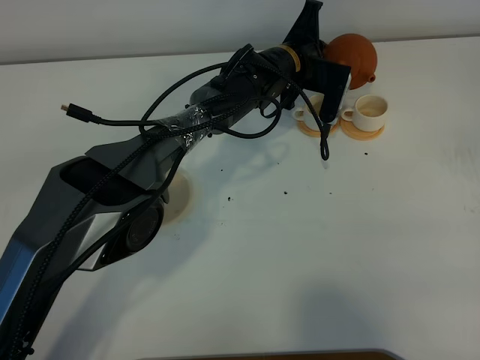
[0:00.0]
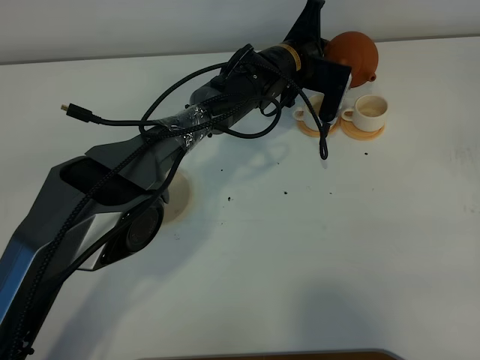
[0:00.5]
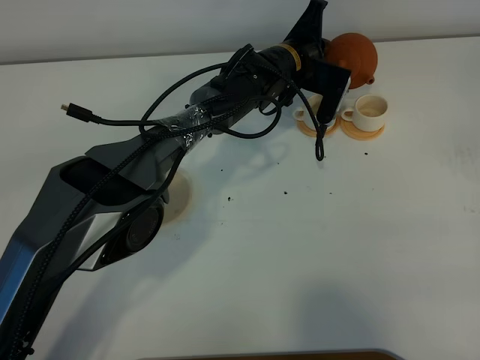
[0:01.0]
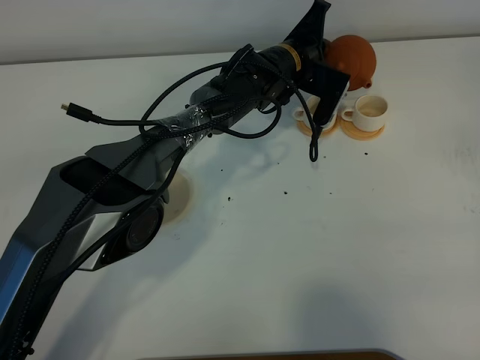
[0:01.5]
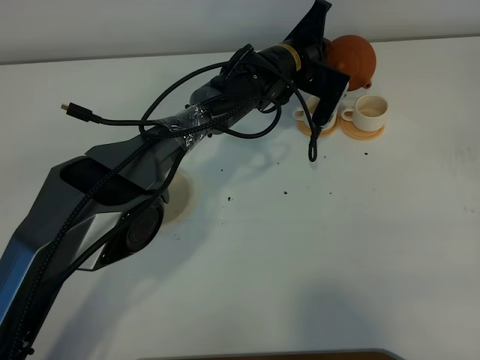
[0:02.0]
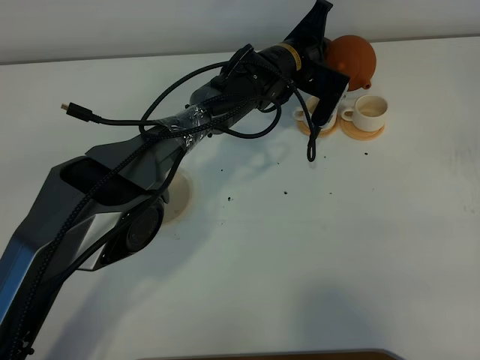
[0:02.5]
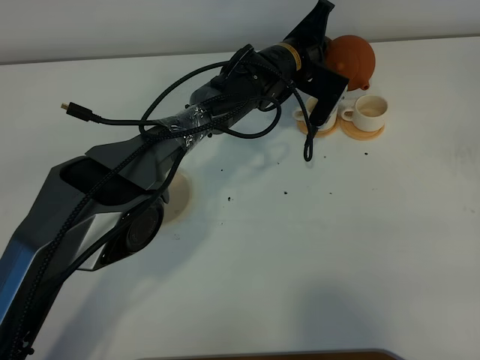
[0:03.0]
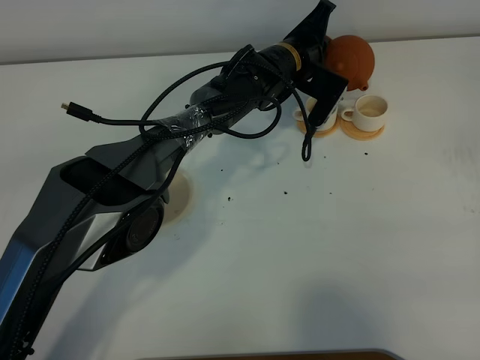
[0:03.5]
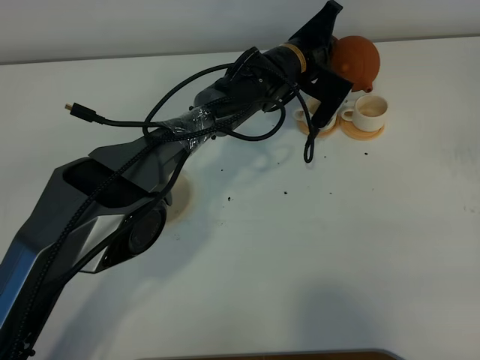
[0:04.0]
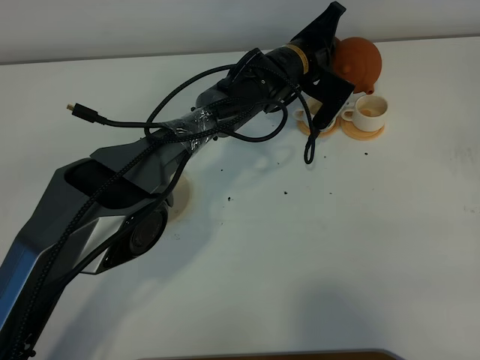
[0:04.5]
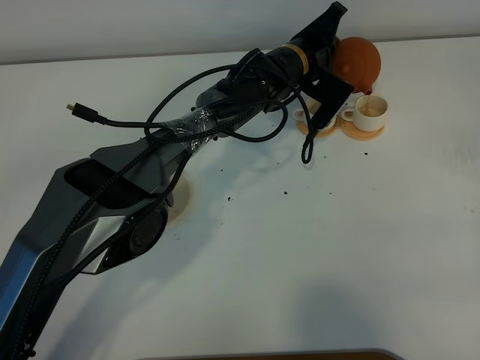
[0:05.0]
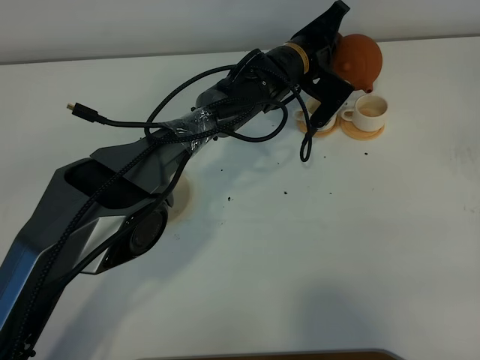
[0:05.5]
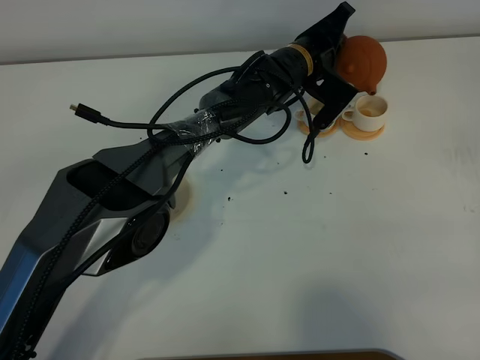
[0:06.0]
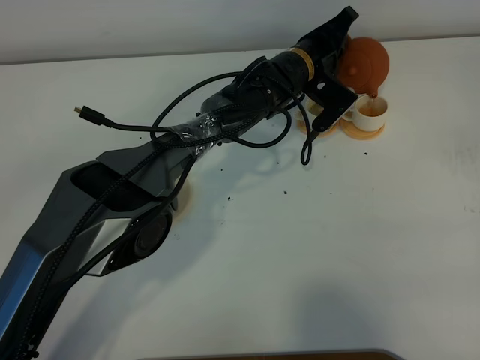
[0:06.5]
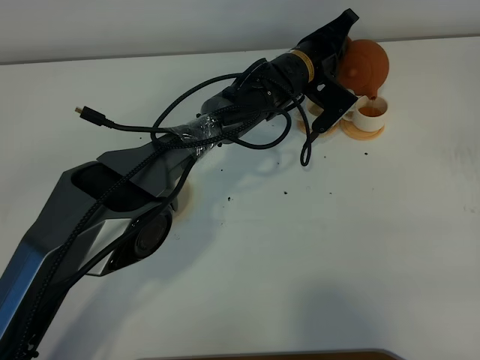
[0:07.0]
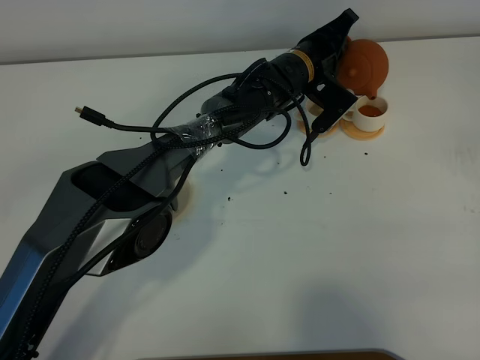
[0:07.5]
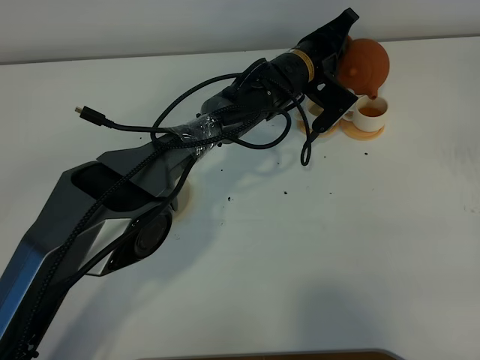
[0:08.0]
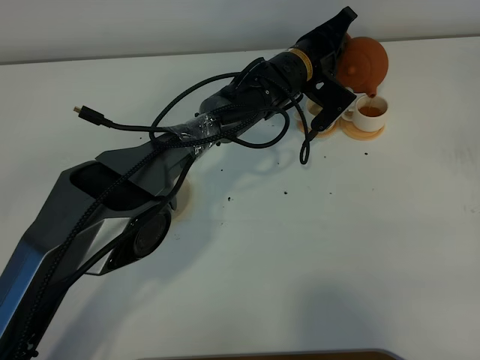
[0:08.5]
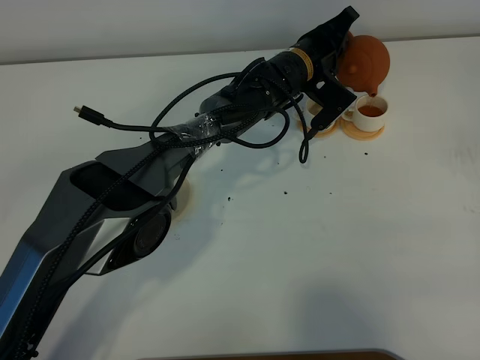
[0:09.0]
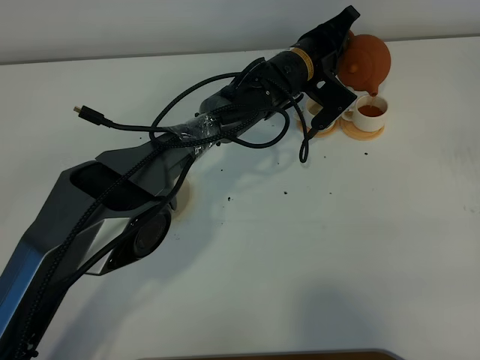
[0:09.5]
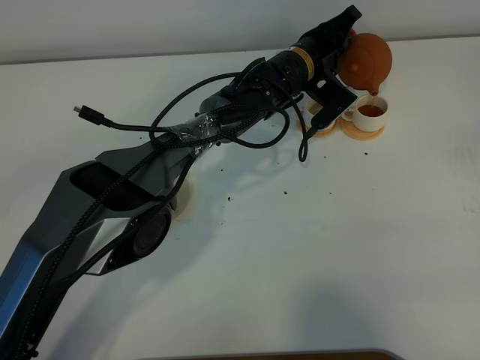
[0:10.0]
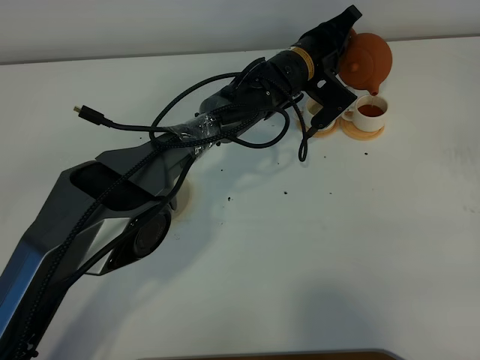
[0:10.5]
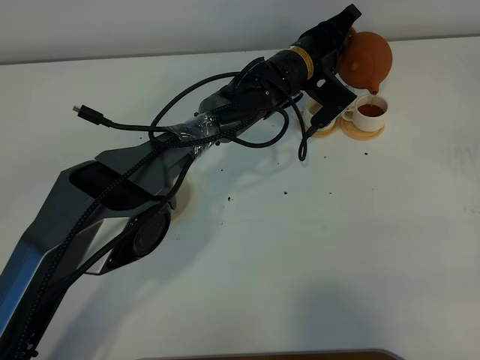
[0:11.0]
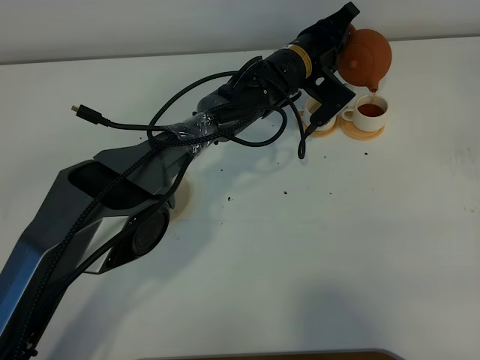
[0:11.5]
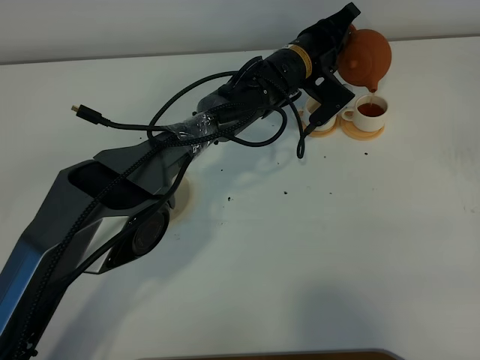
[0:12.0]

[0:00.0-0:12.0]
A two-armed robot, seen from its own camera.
Task of the whole recording: grasp the brown teapot and pour the tea into the two white teacups one by one, put the brown teapot back in its original place.
0.0 to 4.0 s: The grippers stay close to where they were, moving slightly.
4.0 to 6.0 s: The grippers move only a little.
6.0 to 8.0 s: Neither gripper changes place.
8.0 to 10.0 s: The two grippers keep their place.
10.0 to 12.0 s: Both grippers stay put.

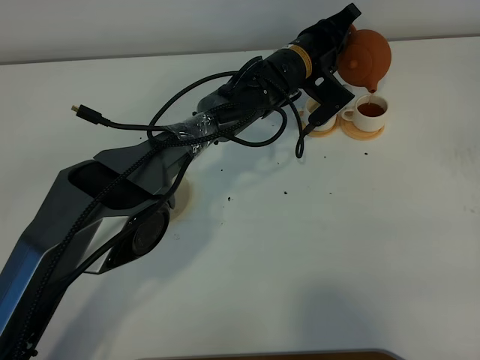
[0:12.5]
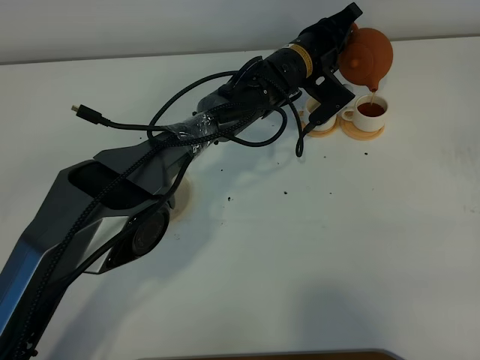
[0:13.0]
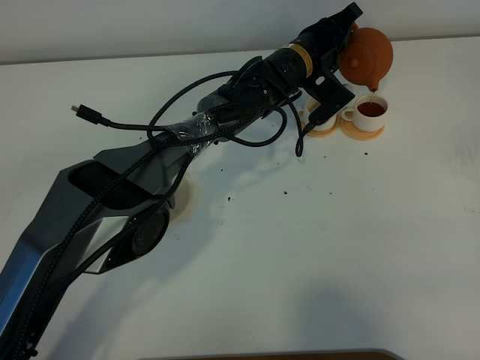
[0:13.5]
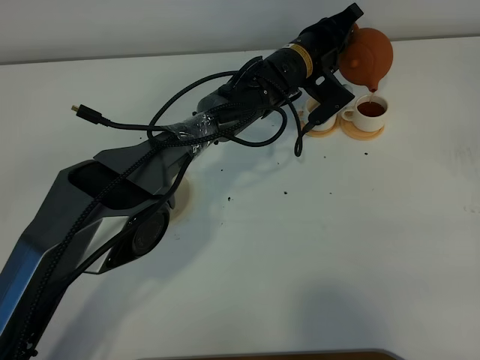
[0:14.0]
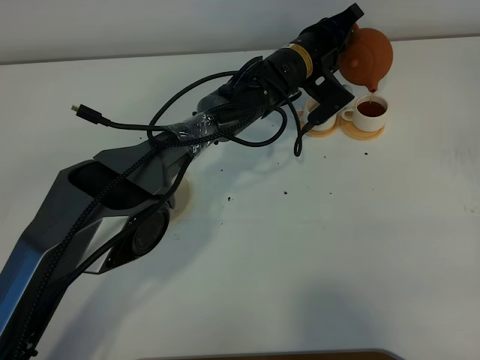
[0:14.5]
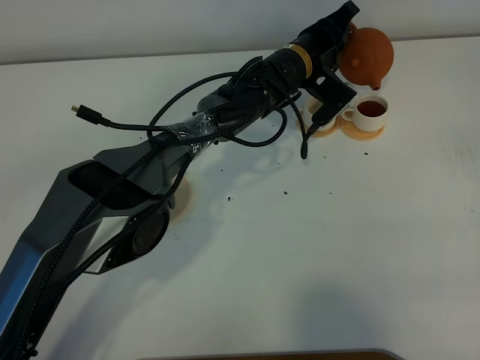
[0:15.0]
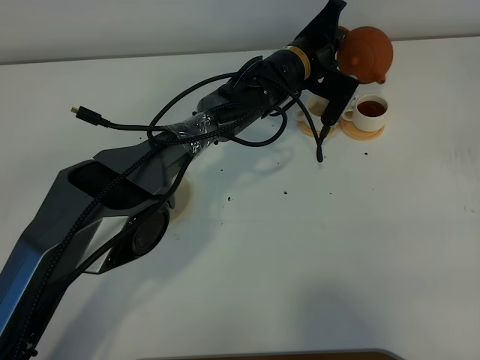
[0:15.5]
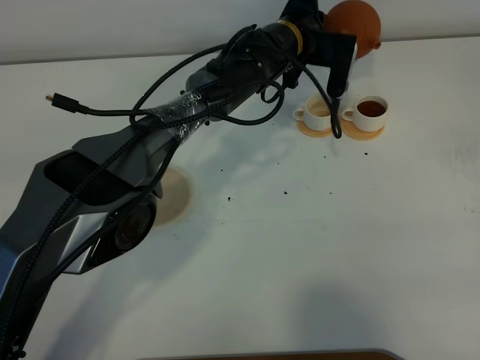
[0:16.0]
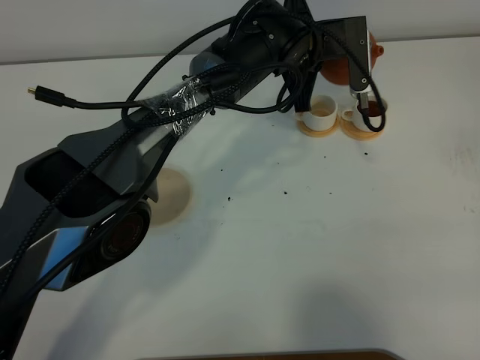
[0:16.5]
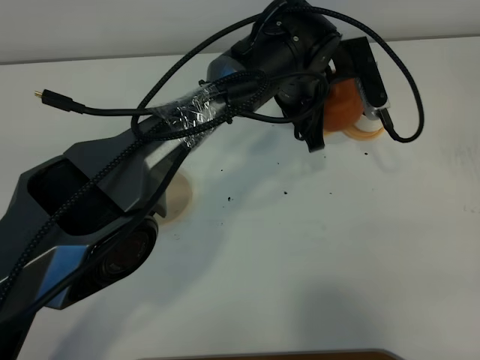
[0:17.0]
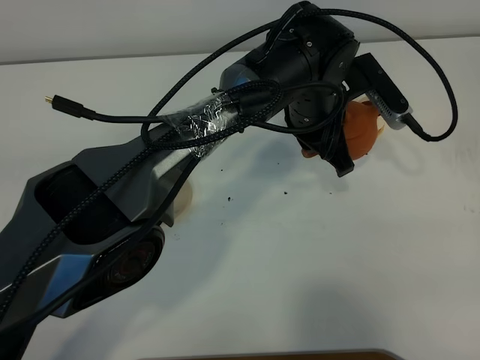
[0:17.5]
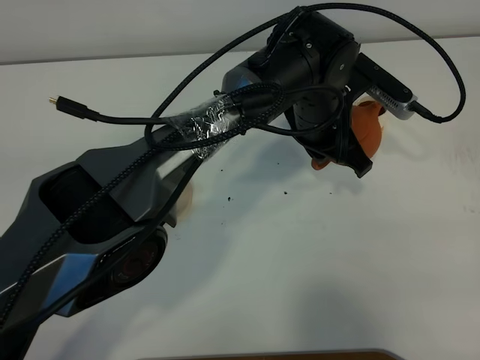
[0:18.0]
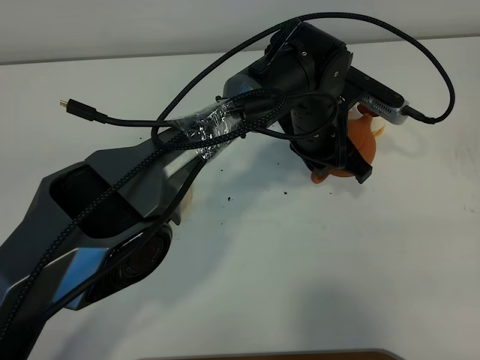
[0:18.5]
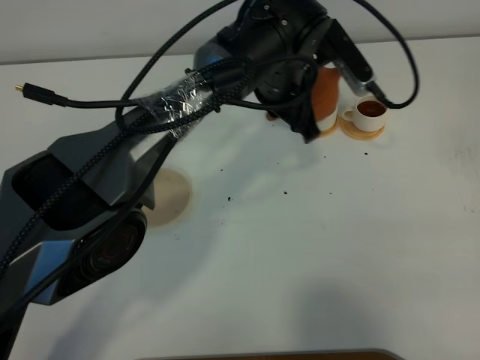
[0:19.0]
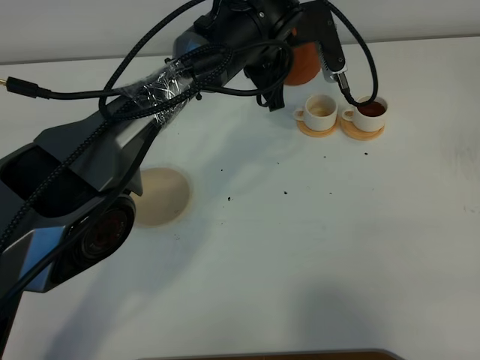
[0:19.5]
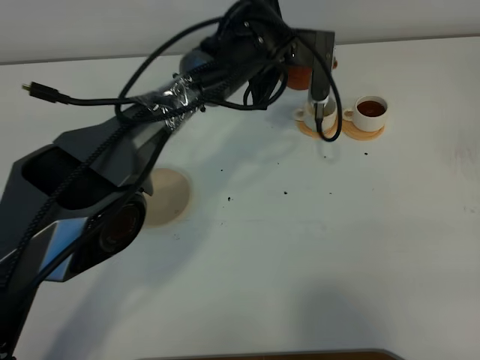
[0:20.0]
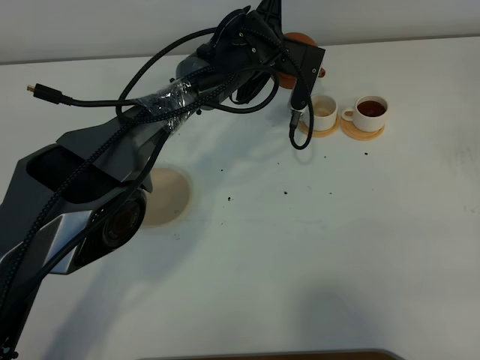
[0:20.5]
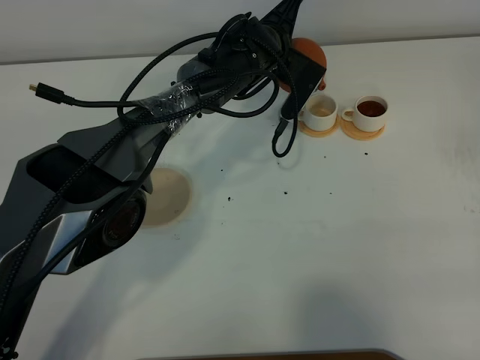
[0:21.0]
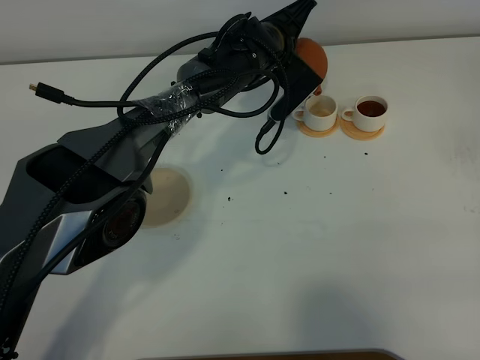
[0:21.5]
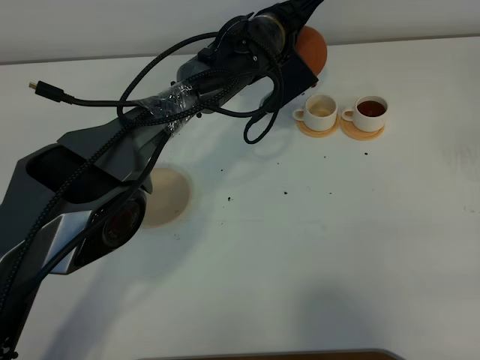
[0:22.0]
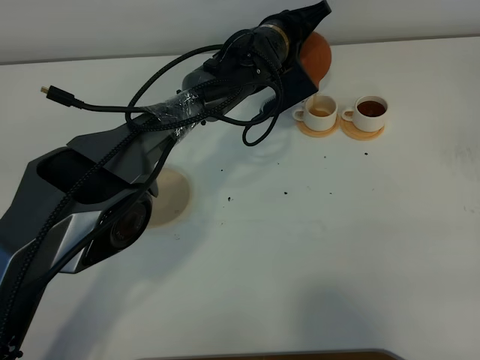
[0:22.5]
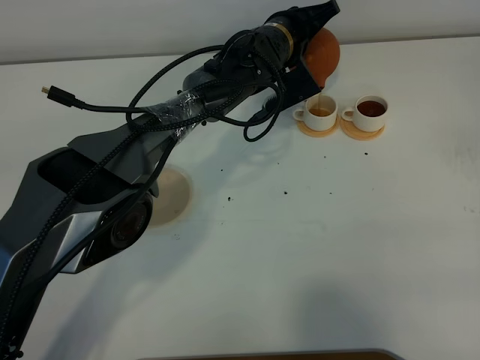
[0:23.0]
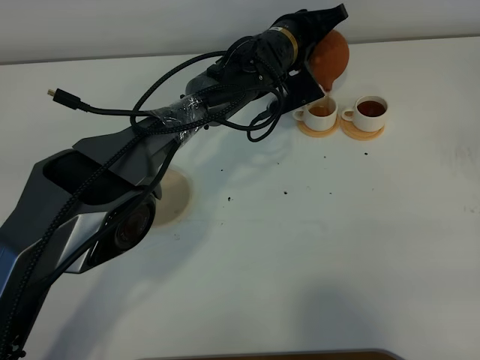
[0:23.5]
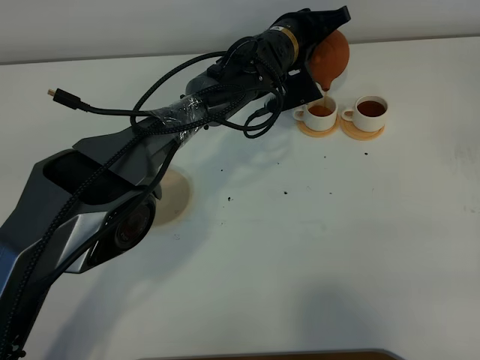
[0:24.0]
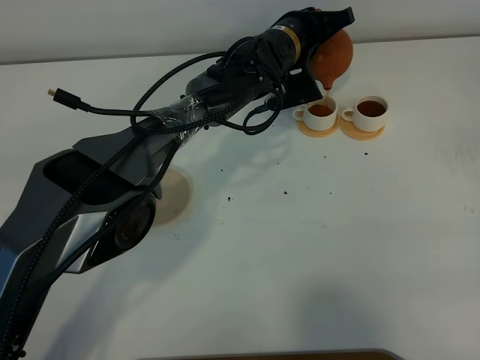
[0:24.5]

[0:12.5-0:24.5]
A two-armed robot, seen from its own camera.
Task of the whole recording: grasp the brown teapot and pour the tea into the two white teacups one by one, put the brown teapot back in its original place.
Step, 12.5 to 16.0 s: Pour tea into the teacup with the left gripper.
12.5 to 14.5 s: Both grippers stay about where they are.
14.5 to 16.5 s: The left gripper is displaced upward by some 5 cm.
16.5 to 18.5 s: The left gripper heads backward, covering some 5 cm.
18.5 to 20.5 s: The left gripper is displaced forward and to the left by roughly 15 cm.
22.5 to 24.5 s: There are only small adjustments of the grippers.

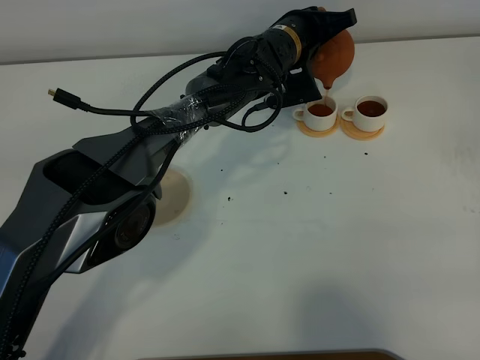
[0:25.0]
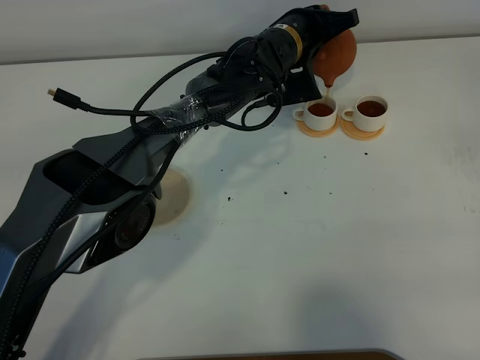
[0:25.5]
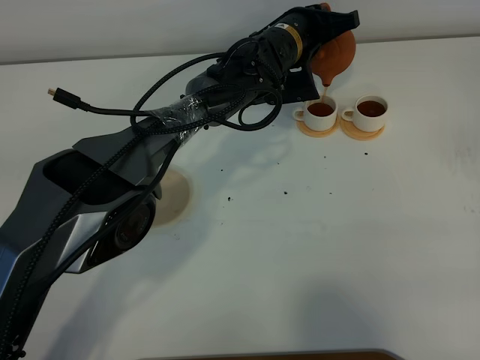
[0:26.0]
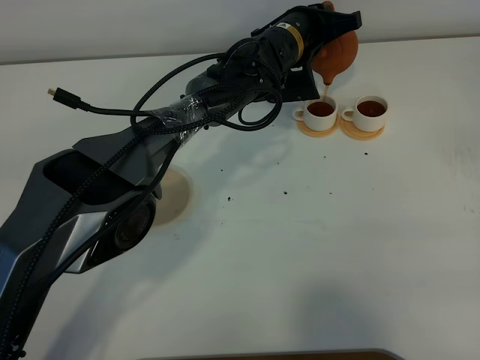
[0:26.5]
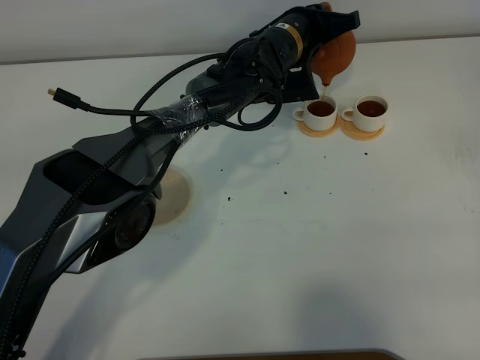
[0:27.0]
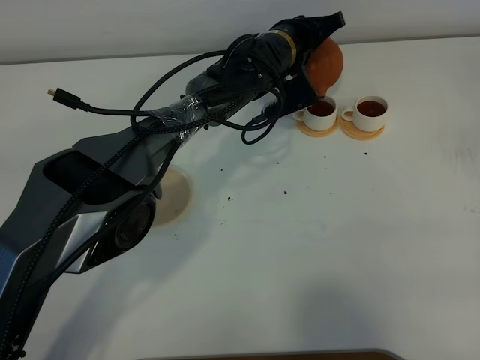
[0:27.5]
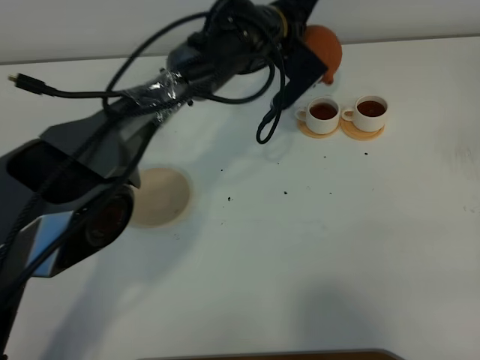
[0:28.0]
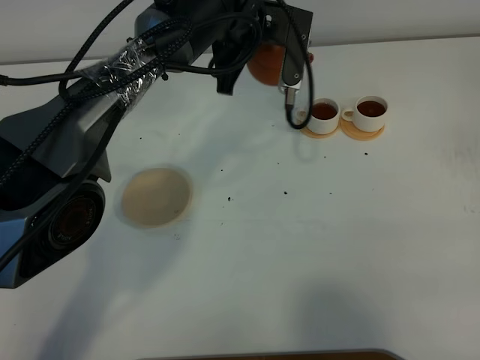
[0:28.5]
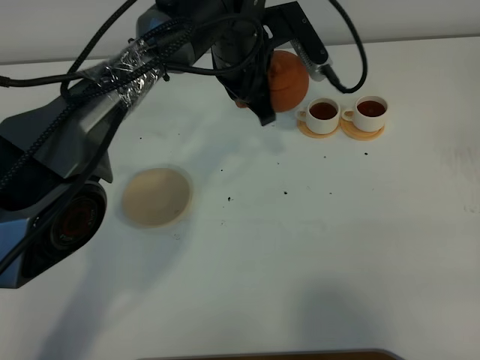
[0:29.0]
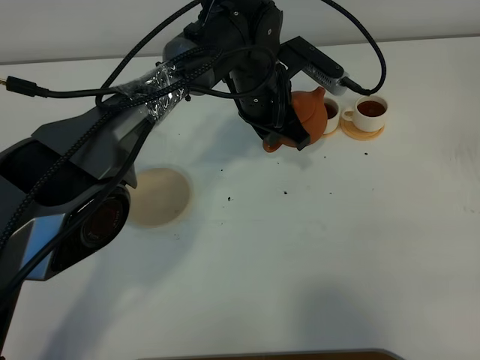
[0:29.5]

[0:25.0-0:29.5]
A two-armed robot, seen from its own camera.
Task of the whole recording: grasp the brown teapot and pour the tea into the two white teacups one by one, put the brown teapot back in its original place.
Step, 25.0 to 28.5 s: Pour tea into the teacup with the left gripper.
25.0 to 27.0 s: The grippers make only small movements.
27.0 to 29.5 s: The left gripper heads backward, covering some 5 cm, and travels upward and back again, some 10 cm each way.
